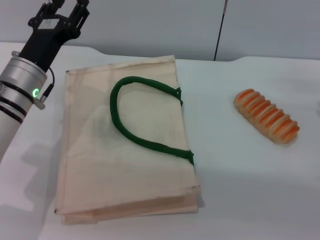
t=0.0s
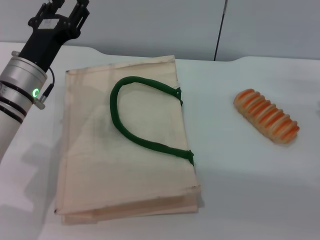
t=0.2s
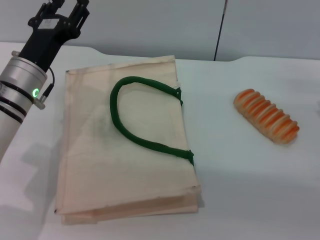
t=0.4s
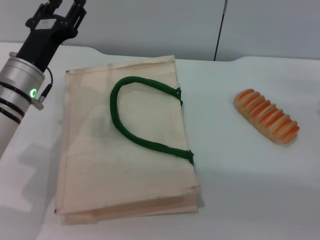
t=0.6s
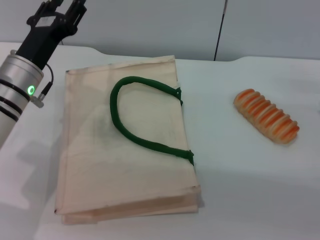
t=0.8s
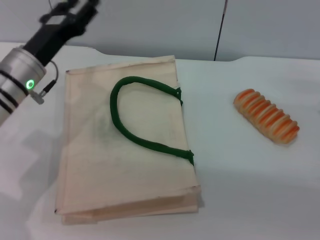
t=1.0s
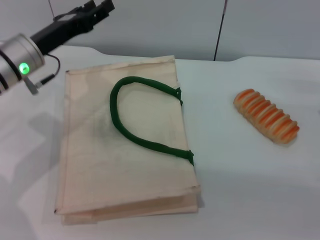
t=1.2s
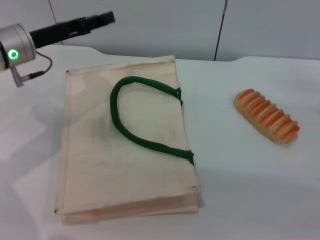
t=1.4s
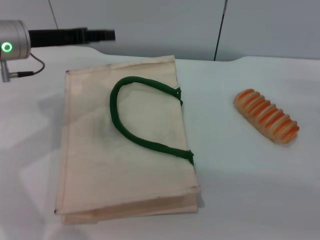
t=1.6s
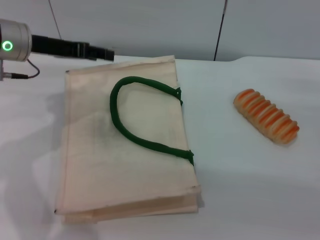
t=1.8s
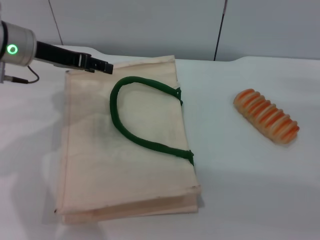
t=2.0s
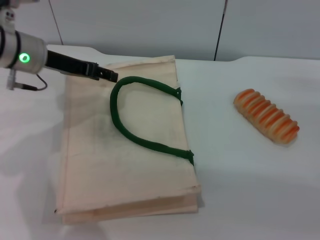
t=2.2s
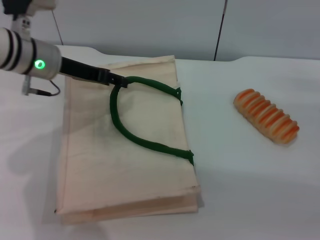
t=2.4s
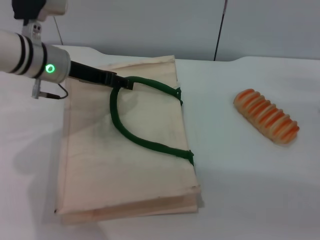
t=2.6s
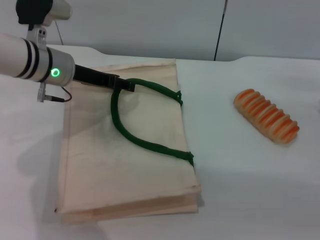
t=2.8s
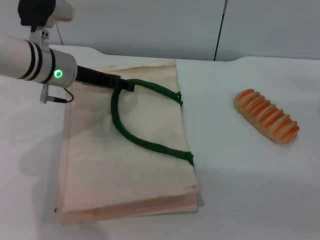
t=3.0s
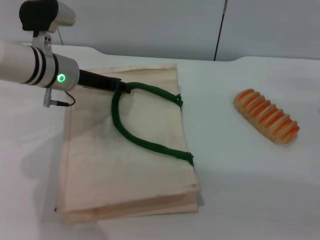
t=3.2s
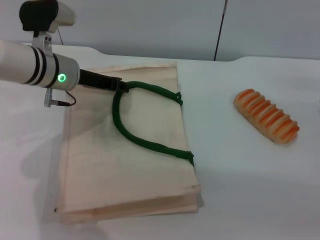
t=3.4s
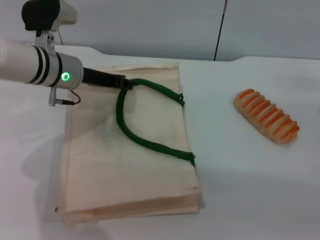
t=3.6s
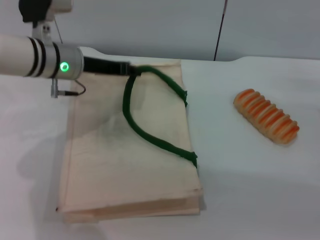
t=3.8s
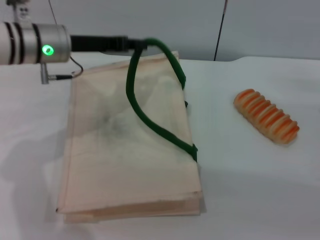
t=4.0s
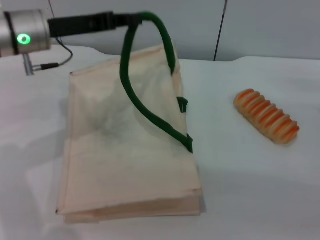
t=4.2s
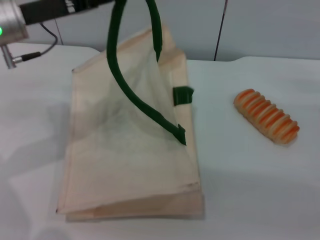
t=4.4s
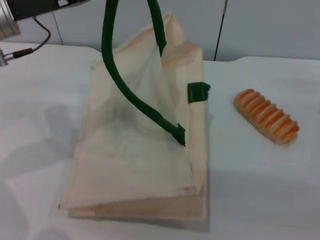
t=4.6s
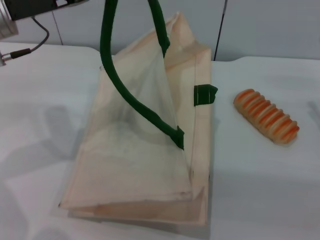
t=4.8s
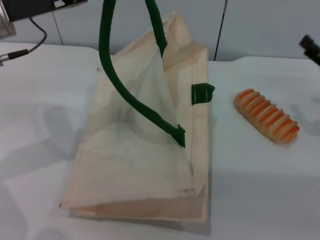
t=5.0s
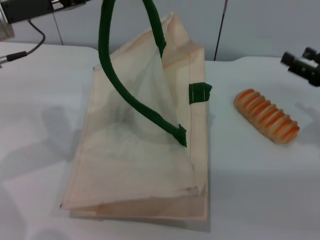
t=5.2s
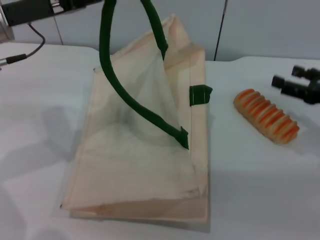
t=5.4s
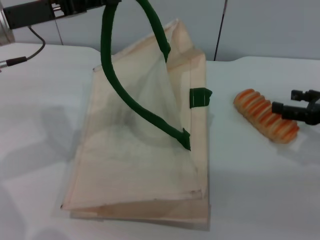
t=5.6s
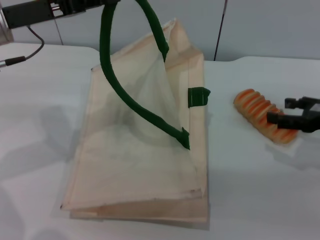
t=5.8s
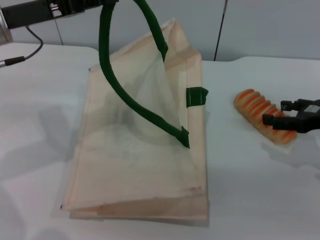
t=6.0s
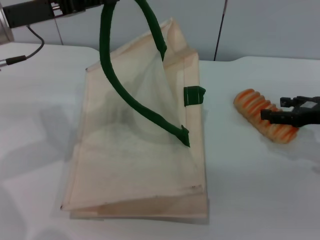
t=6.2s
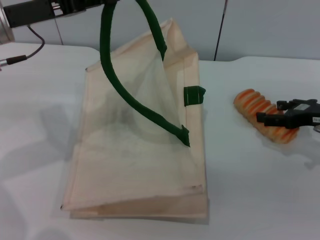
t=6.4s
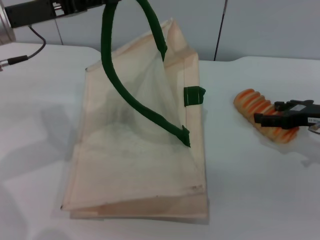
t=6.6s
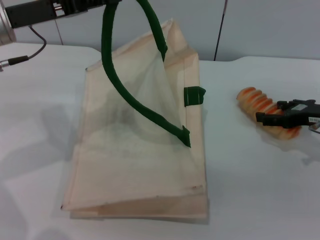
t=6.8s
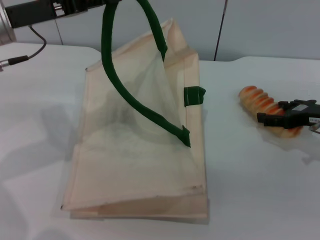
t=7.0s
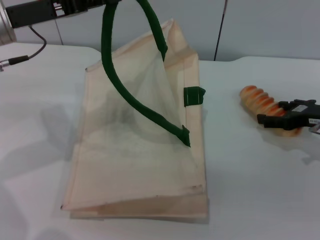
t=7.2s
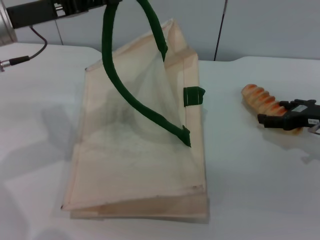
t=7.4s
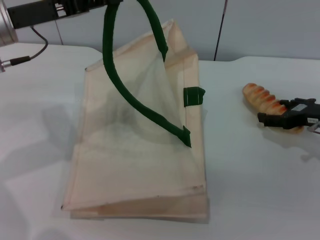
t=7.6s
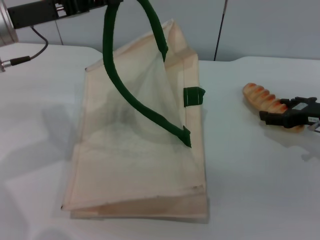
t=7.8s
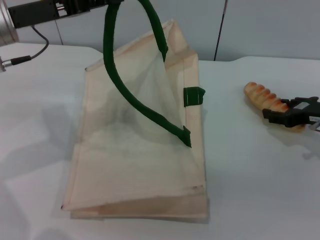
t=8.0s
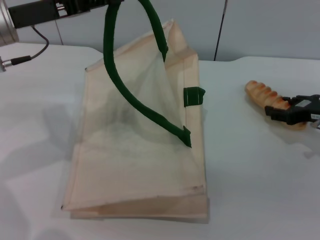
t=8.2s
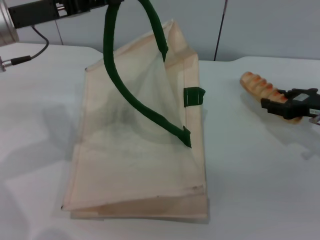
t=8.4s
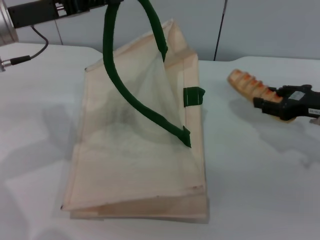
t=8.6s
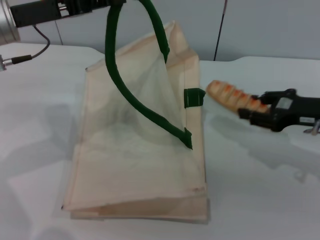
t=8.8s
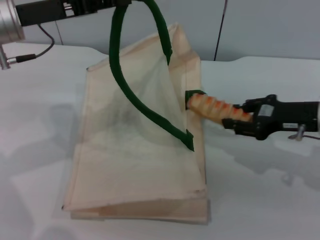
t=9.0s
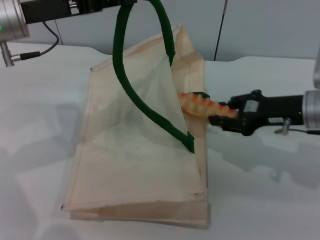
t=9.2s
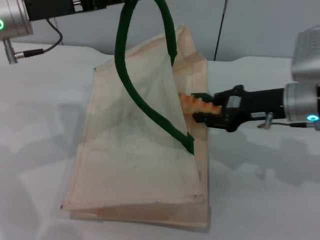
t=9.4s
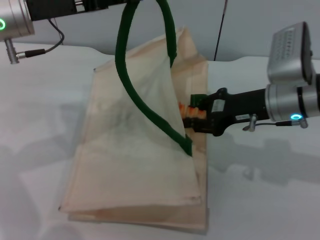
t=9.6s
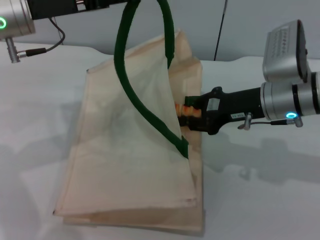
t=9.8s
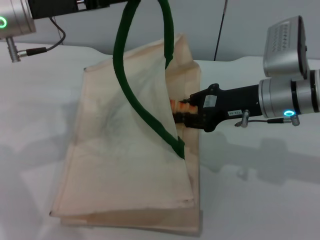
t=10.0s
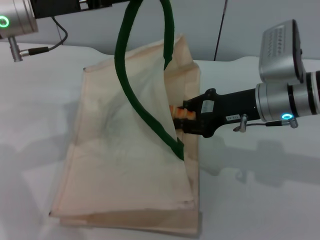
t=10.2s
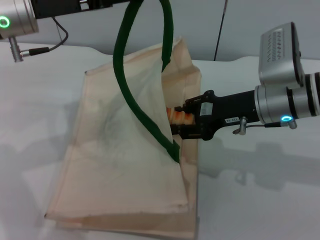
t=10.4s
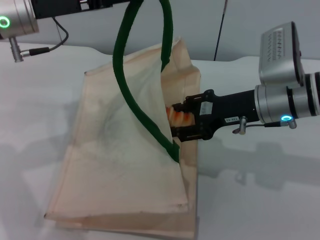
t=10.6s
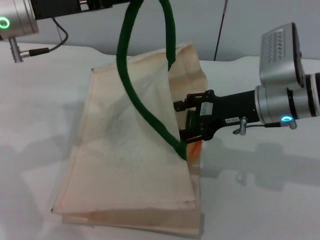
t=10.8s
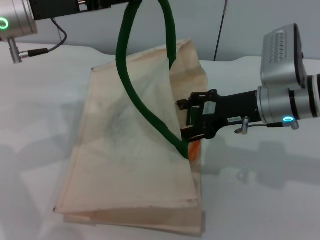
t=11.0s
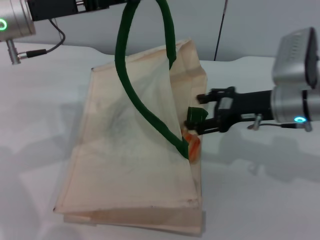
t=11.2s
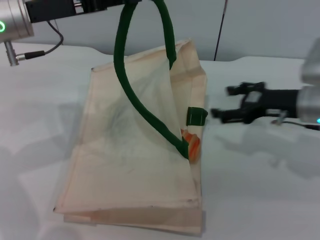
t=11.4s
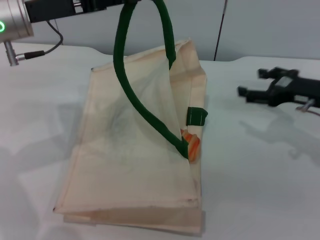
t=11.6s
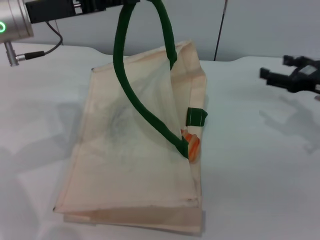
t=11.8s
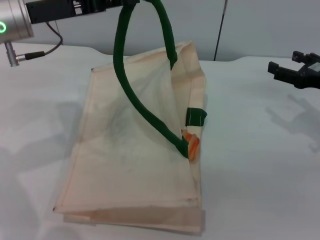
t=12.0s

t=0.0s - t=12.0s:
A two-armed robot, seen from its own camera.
Task of the whole recording: pick up the bread from the table and place it in the white handbag.
Step, t=0.0s - t=4.6s: Lift the woven bag with the left gripper to open it.
Step, t=4.8s - t=8.6s: Pick up the bread with the right gripper.
Step, t=8.8s - t=11.4s: Place the bread into the woven bag with the right gripper.
t=0.0s - t=1.6s: The left gripper travels upward and forward by about 10 cm.
t=1.6s - t=3.0s: The left gripper is displaced to the right by some 5 cm.
t=3.0s - t=4.4s: The left gripper moves upward, roughly 5 cm, and closes up.
t=6.0s - t=7.6s: The grippers make only small movements.
t=7.6s - t=9.0s: The right gripper ends up some 5 cm from where it was, and closes its fingers.
t=9.0s - t=10.4s: The right gripper shifts some 10 cm to the left.
t=10.4s - t=12.0s: The right gripper moves to the right, approximately 15 cm, and opens up.

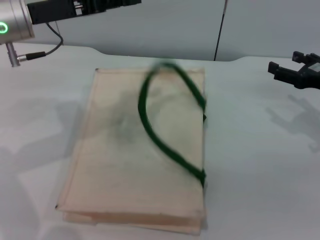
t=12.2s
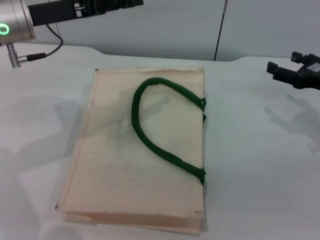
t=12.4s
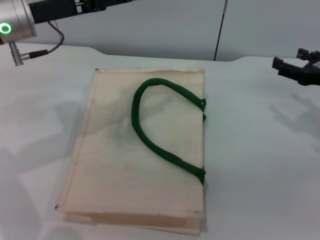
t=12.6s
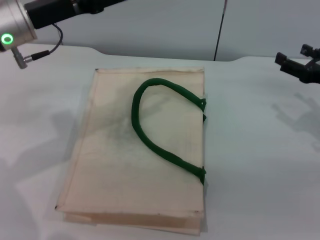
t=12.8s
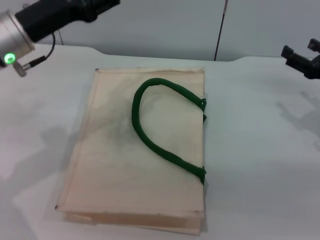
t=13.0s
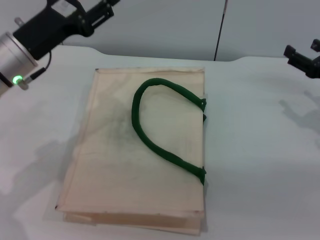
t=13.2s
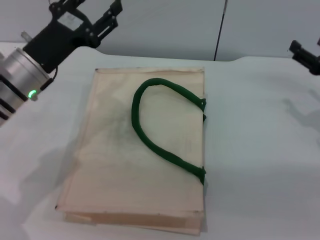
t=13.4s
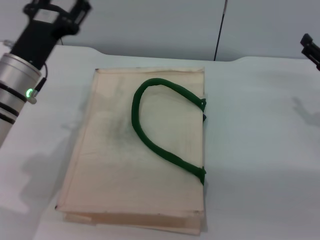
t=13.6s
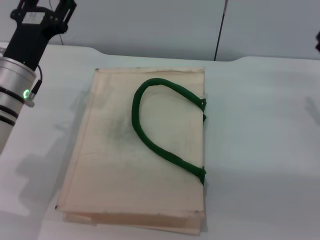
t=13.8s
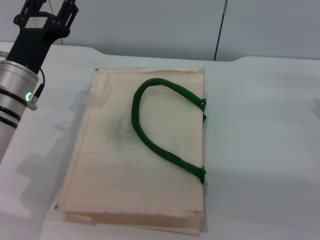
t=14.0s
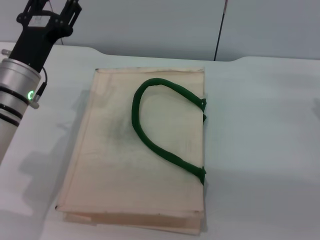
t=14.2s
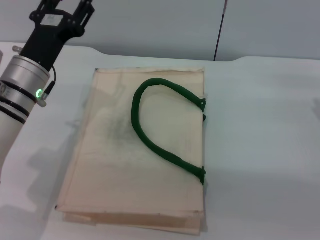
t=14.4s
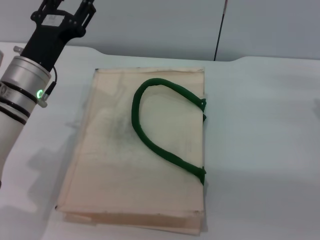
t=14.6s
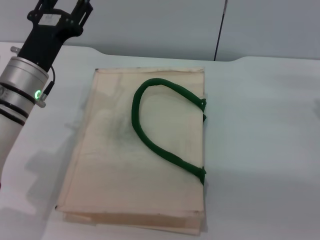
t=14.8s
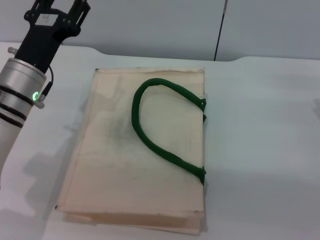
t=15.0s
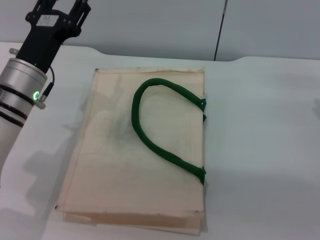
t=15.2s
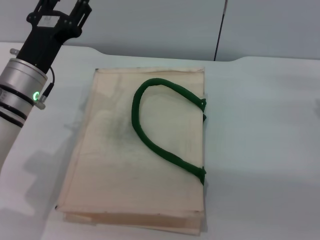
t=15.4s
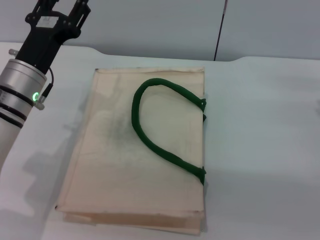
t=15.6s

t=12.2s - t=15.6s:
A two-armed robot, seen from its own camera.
Task of the whole recording: pick up the bread from the table and place it in the white handbag.
Step, t=12.2s - t=14.0s: Lower the woven bag with the left gripper to close it.
t=12.2s - t=13.8s: The left gripper goes some 10 cm downward, and opens.
t=13.8s - t=15.6s: The grippers stay close to where they were, moving slightly.

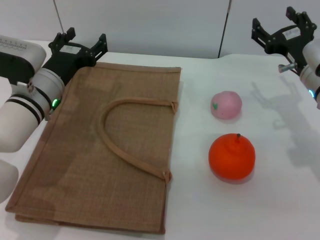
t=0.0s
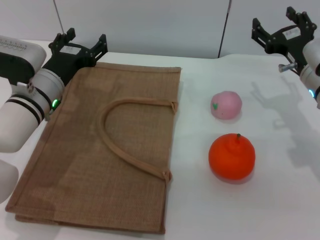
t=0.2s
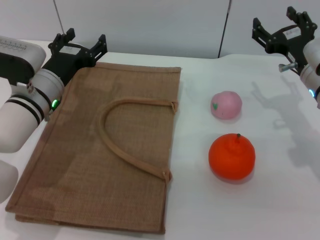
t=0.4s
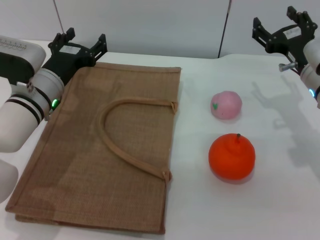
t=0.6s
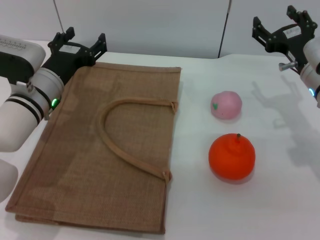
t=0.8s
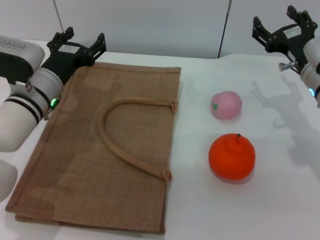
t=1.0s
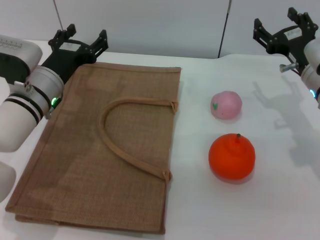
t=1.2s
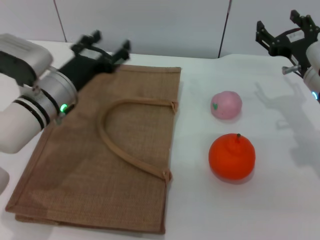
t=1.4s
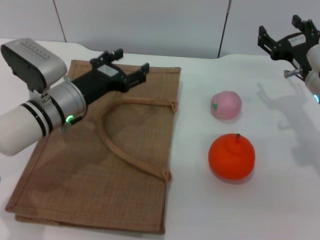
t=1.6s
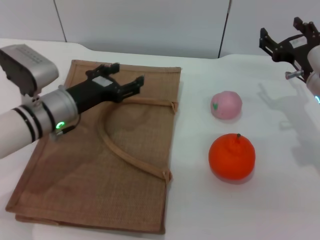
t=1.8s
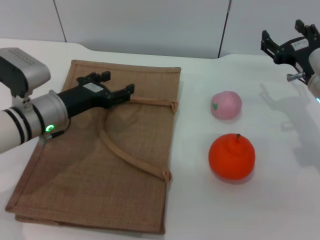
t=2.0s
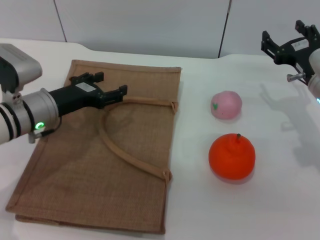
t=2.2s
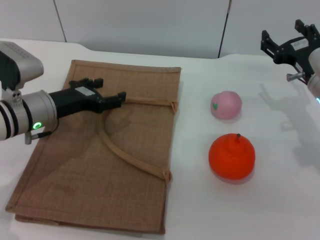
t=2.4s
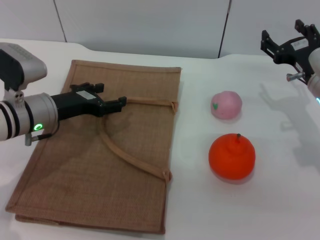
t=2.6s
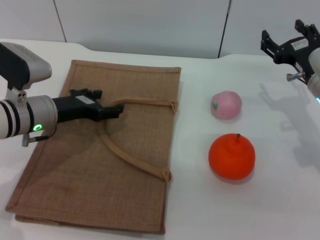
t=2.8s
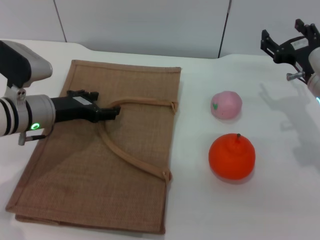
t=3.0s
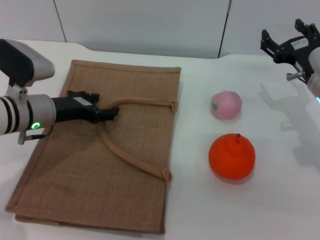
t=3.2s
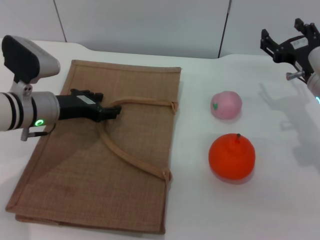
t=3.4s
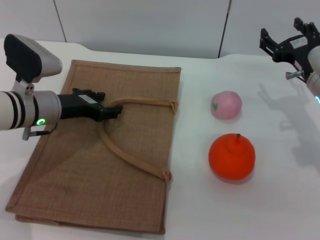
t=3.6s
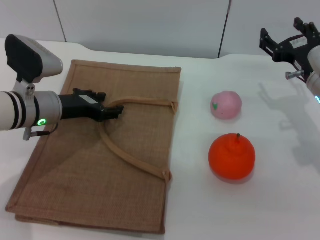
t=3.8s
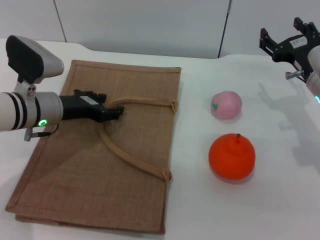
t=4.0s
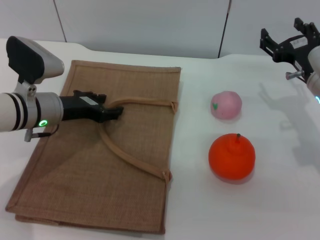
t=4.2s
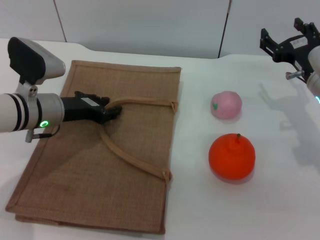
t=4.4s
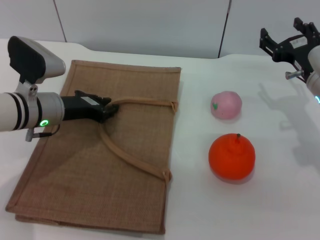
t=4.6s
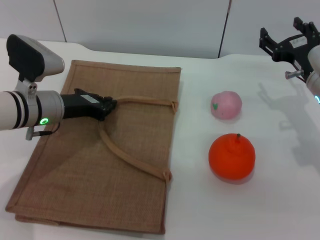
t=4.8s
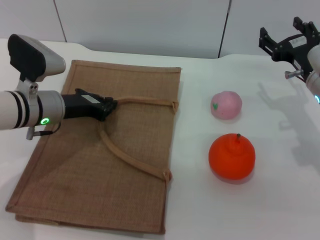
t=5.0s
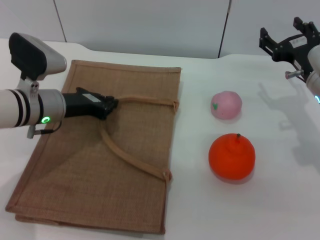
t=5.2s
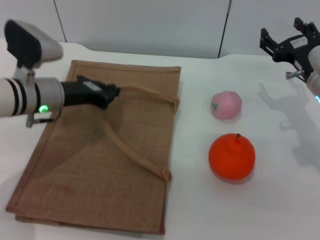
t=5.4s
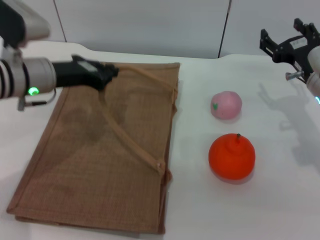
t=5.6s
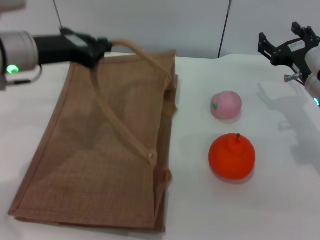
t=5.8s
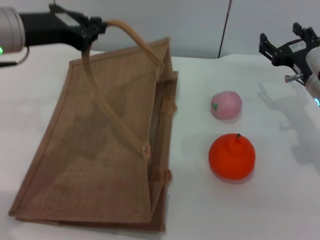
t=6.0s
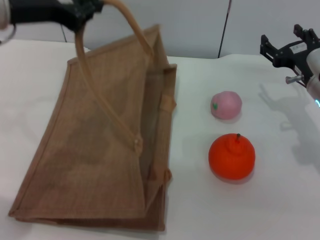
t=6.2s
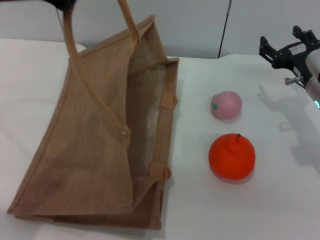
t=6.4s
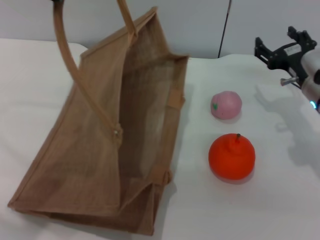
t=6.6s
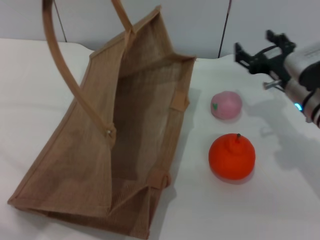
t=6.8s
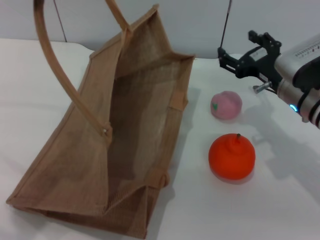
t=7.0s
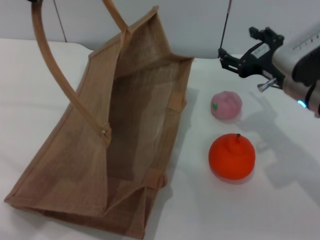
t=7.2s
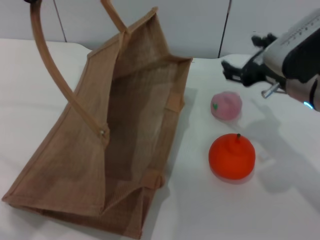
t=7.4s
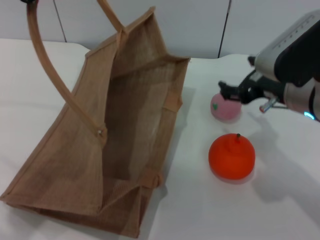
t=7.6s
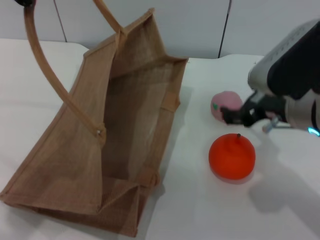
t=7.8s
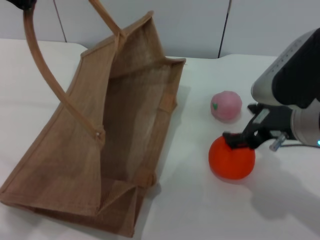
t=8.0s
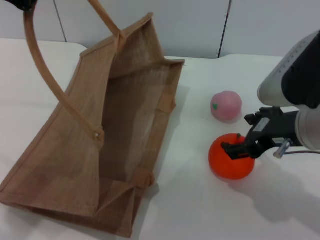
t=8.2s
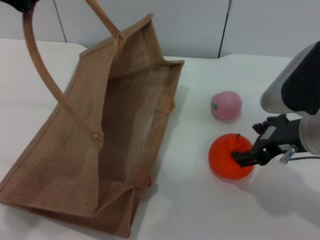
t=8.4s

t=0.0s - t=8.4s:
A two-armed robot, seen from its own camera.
Task of the whole recording: pick up the orange and peach from the table and place it in the brown handbag.
Step, t=0.0s - t=6.2s: Lift the woven bag with the left gripper to open it.
t=0.0s - t=1.4s: The grippers move only a little.
t=2.8s - t=4.2s: The grippers move only a little.
t=4.2s - t=5.6s: The left gripper shifts about 5 cm upward, and closes up.
t=5.6s - t=7.0s: The right gripper moves some 5 cm; the left gripper shifts some 20 cm upward and backward.
t=7.0s - t=8.4s: The right gripper heads backward and upward, covering roughly 10 cm.
